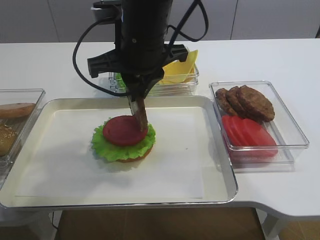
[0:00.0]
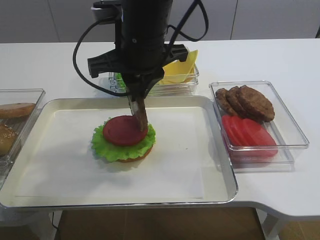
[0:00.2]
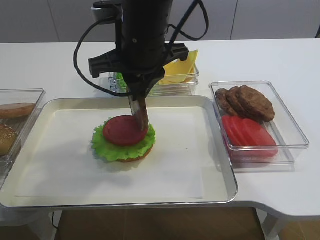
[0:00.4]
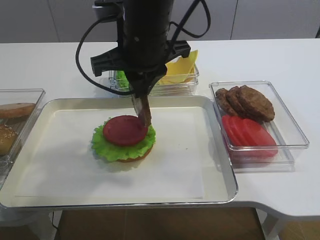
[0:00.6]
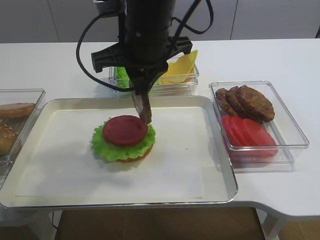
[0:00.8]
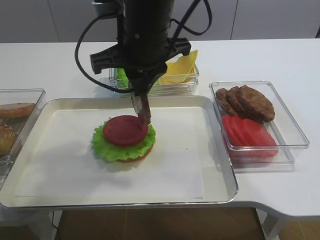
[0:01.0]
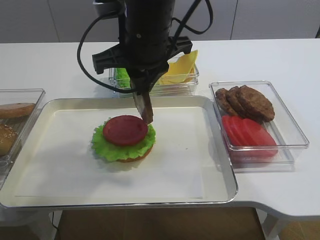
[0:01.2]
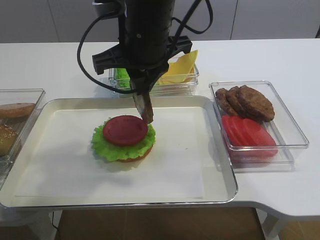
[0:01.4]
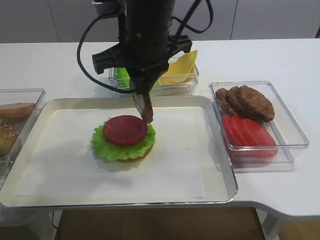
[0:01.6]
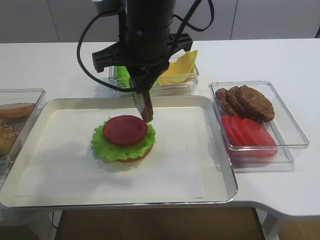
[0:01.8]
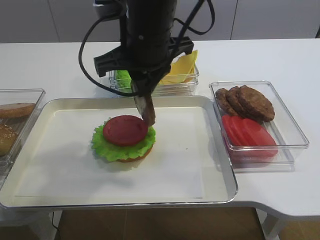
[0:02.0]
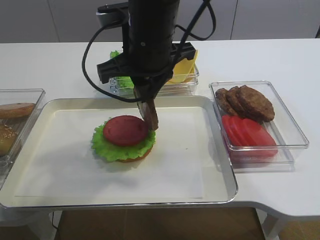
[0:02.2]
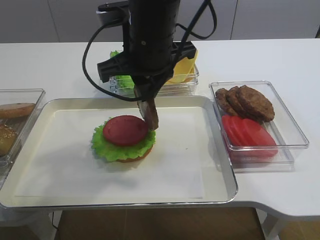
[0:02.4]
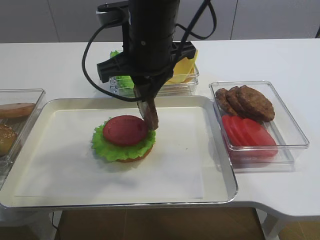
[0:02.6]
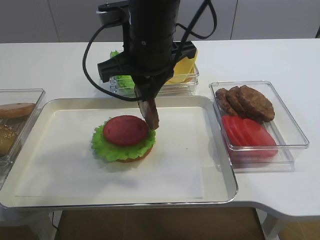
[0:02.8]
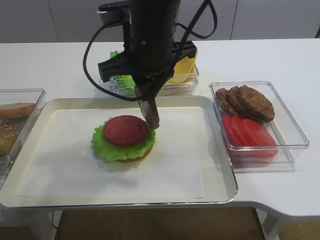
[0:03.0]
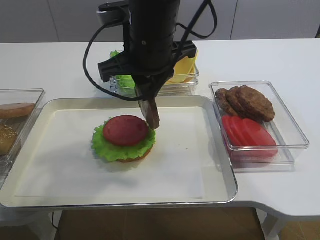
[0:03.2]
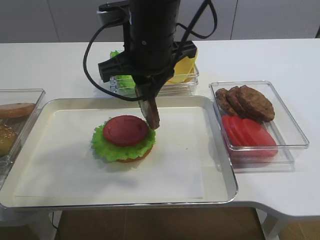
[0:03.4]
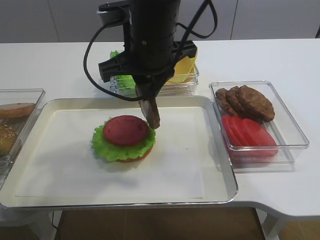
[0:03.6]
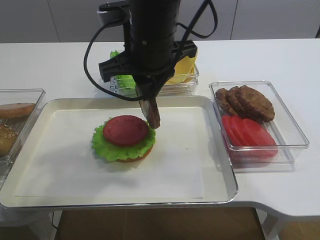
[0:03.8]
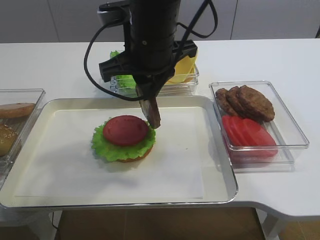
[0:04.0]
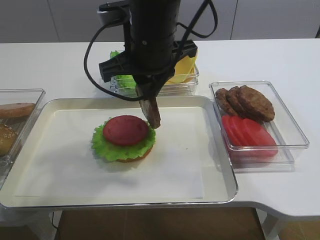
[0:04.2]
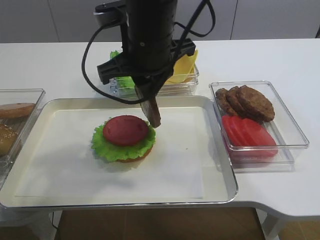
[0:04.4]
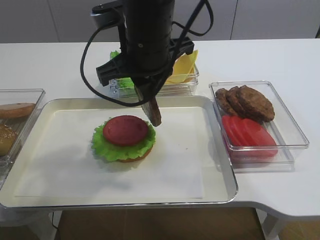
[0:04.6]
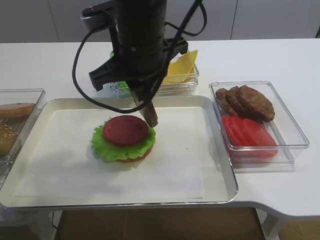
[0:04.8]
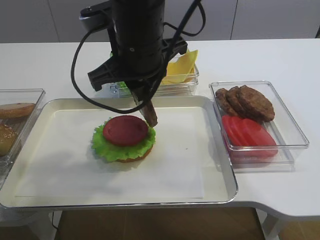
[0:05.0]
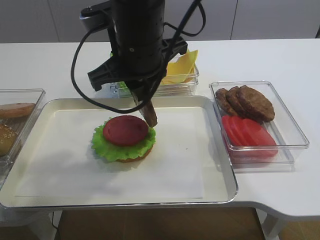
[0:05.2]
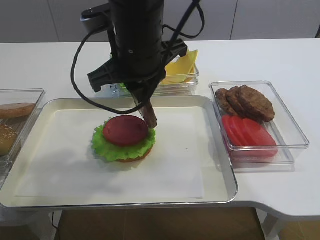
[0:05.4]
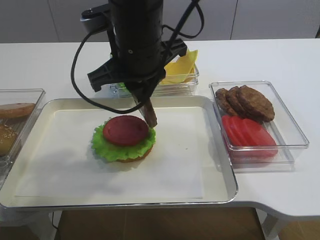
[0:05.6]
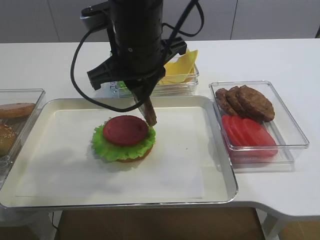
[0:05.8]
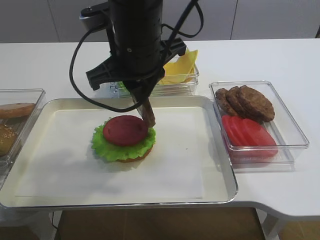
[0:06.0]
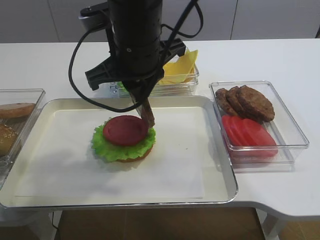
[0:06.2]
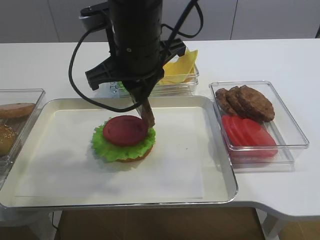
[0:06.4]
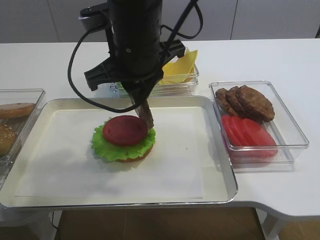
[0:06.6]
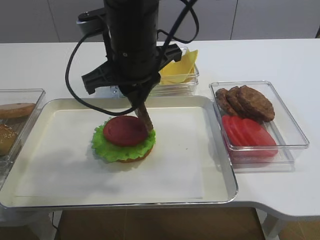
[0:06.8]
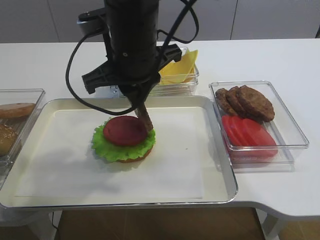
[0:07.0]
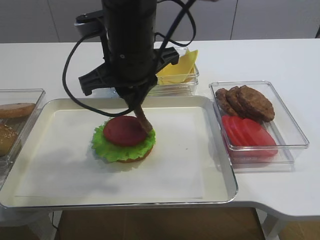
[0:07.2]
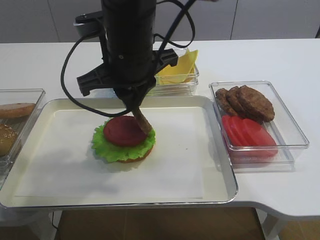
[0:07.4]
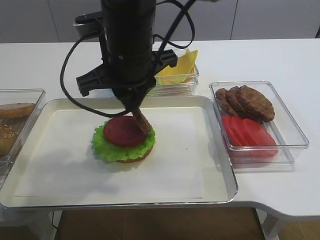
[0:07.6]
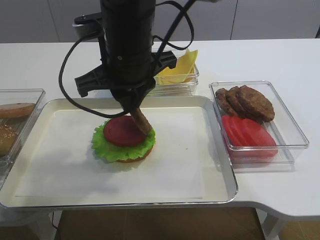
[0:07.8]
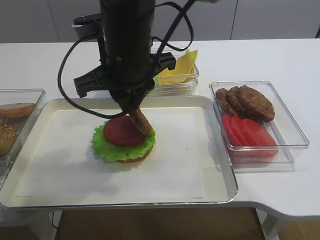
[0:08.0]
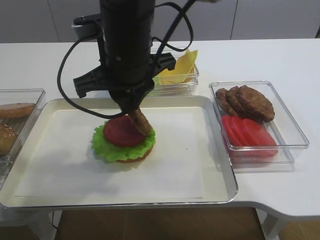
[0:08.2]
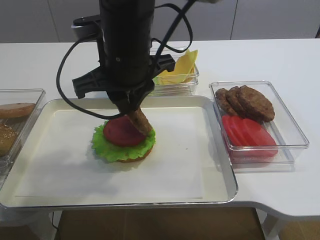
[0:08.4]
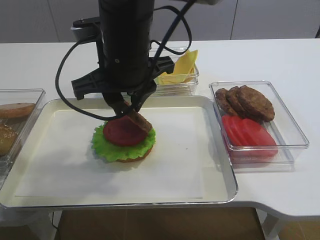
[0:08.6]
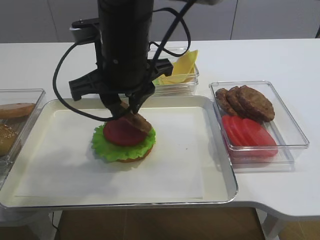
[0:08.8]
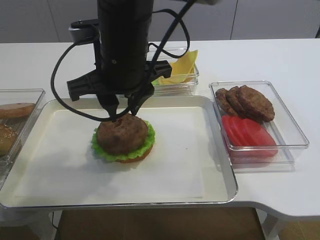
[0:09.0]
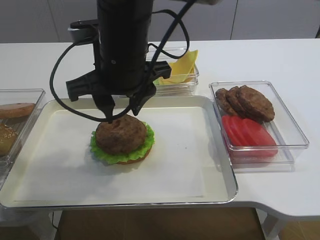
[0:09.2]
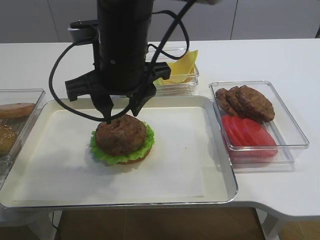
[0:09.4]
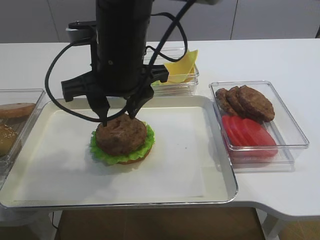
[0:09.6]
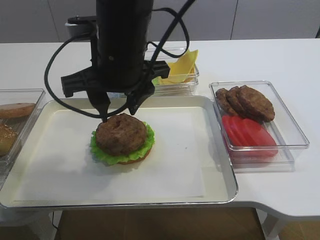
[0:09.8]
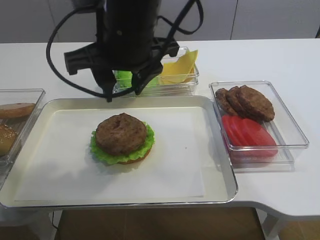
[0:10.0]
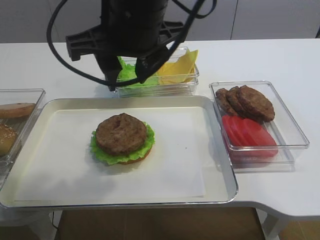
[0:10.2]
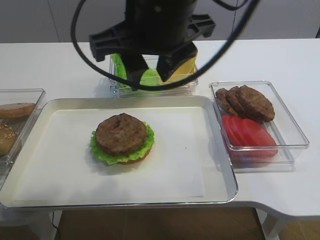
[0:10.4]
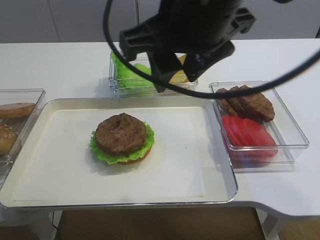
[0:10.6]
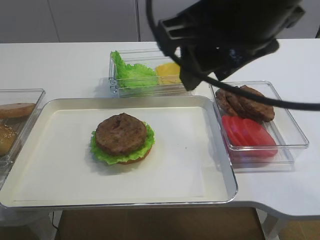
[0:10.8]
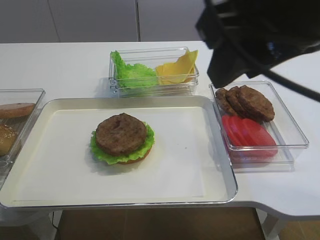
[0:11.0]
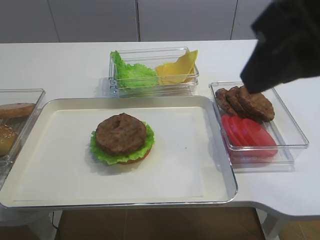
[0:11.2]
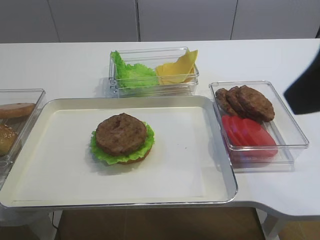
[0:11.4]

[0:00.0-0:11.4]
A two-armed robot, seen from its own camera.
Step, 0:00.0 to 0:09.4: Place the cutlet on the tomato slice with the right gripper.
0:00.0 to 0:02.8: Both grippers stay about where they are.
0:02.8 to 0:04.2: Neither gripper changes place.
0:04.2 to 0:05.6: The grippers move only a little.
0:05.6 to 0:07.2: Both grippers stay put.
0:07.2 to 0:08.6: The right gripper opens.
0:08.6 to 0:10.0: The right gripper opens.
0:10.0 to 0:11.4: The right gripper heads to the right and backward, covering some 25 cm.

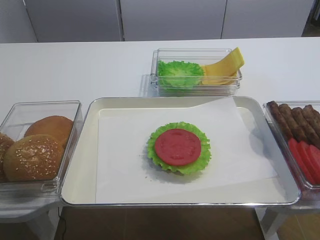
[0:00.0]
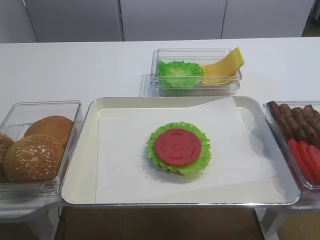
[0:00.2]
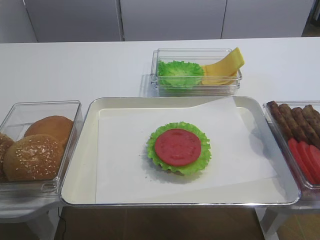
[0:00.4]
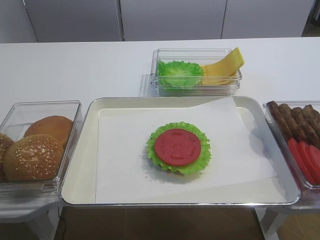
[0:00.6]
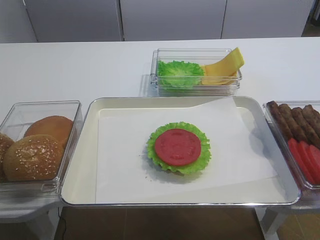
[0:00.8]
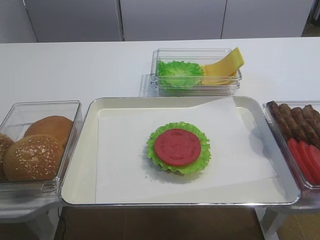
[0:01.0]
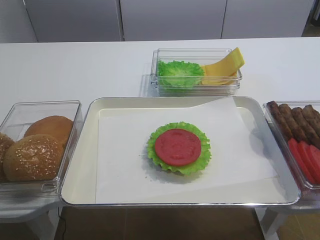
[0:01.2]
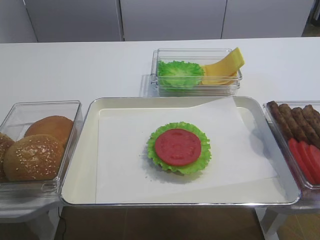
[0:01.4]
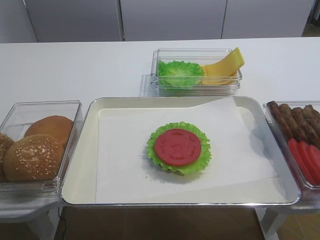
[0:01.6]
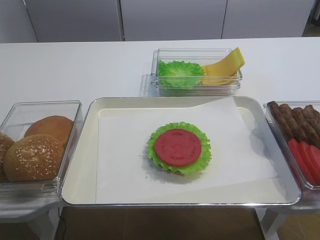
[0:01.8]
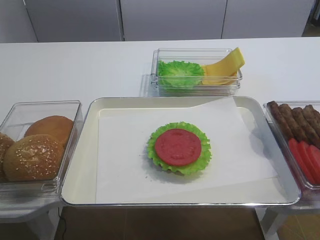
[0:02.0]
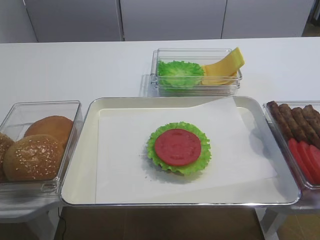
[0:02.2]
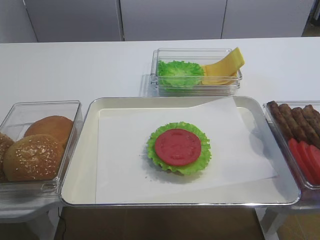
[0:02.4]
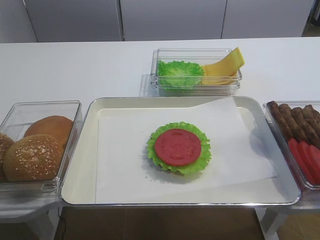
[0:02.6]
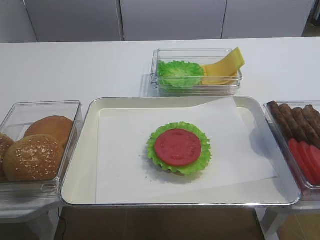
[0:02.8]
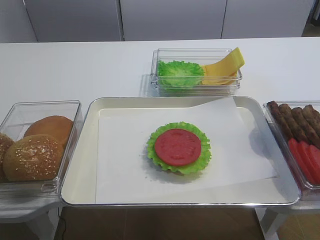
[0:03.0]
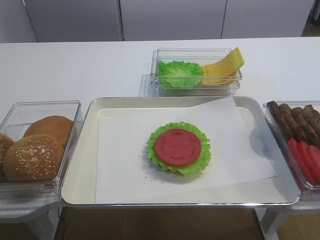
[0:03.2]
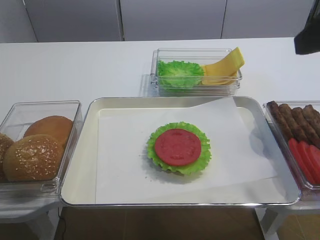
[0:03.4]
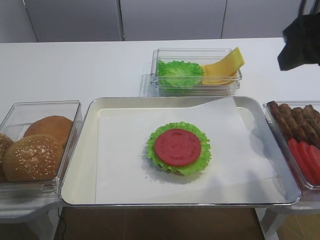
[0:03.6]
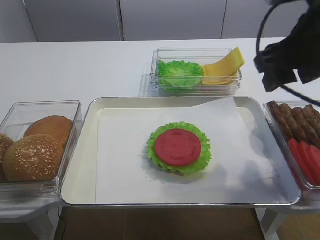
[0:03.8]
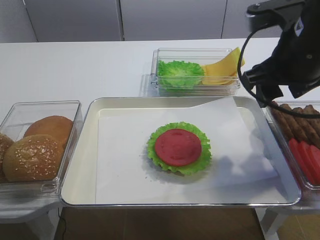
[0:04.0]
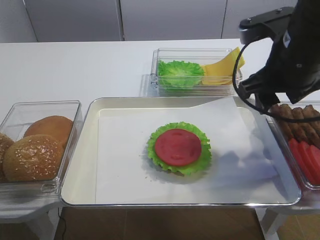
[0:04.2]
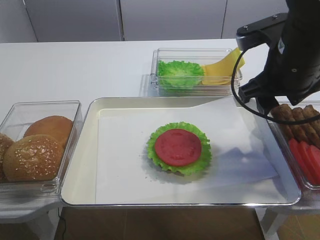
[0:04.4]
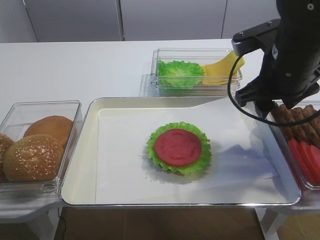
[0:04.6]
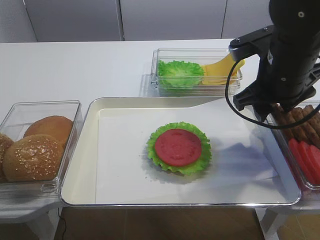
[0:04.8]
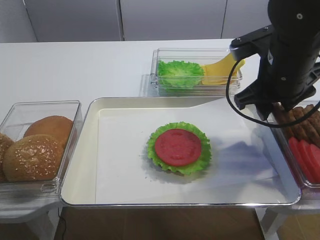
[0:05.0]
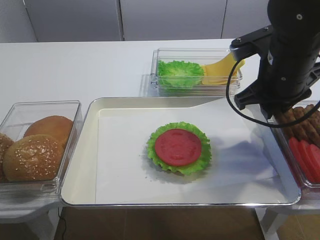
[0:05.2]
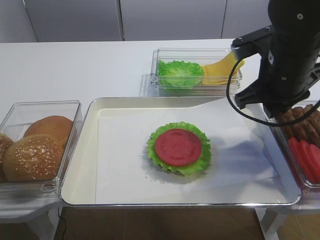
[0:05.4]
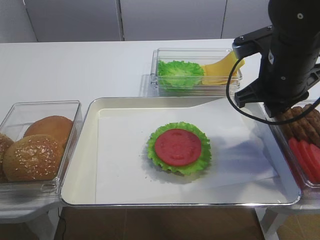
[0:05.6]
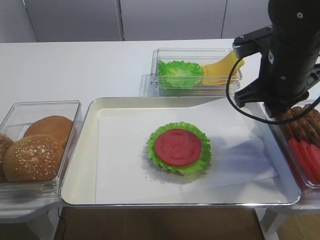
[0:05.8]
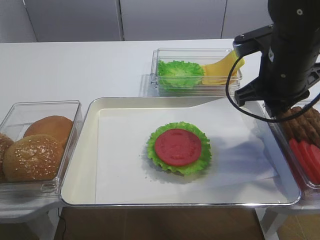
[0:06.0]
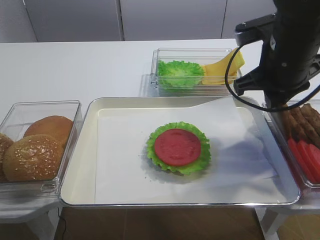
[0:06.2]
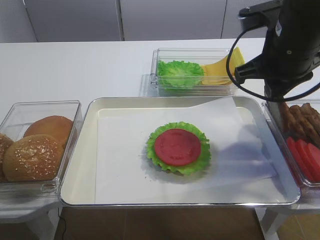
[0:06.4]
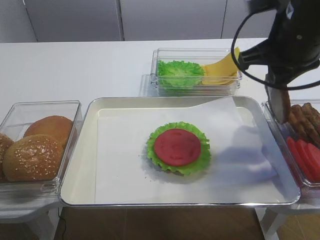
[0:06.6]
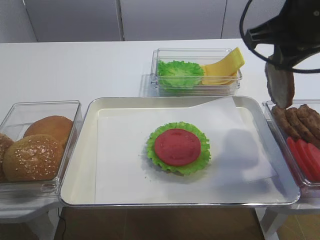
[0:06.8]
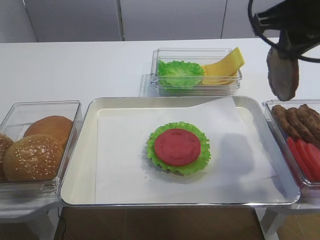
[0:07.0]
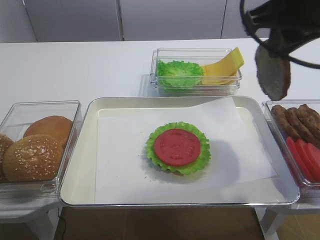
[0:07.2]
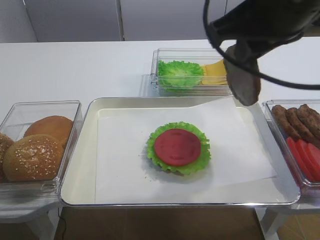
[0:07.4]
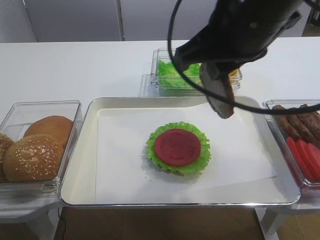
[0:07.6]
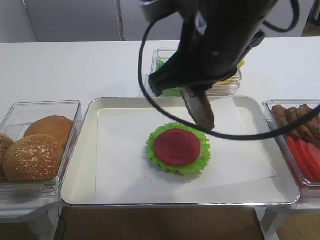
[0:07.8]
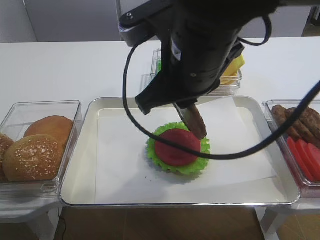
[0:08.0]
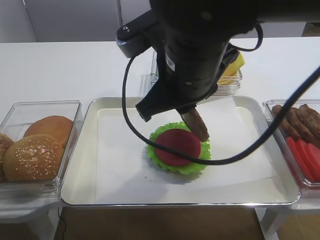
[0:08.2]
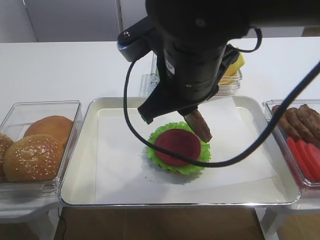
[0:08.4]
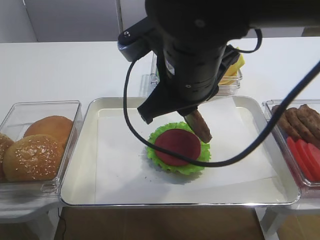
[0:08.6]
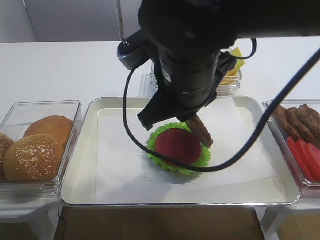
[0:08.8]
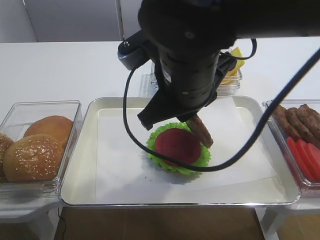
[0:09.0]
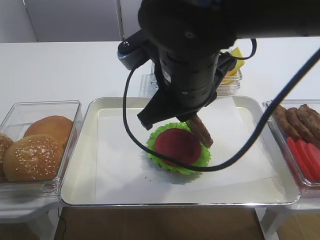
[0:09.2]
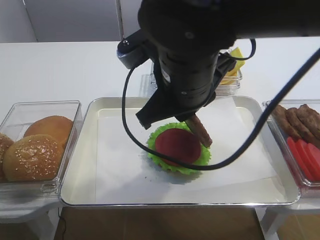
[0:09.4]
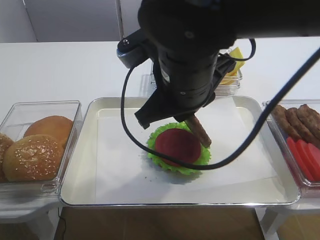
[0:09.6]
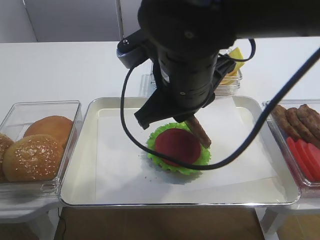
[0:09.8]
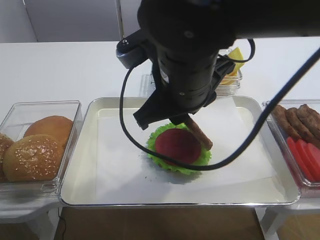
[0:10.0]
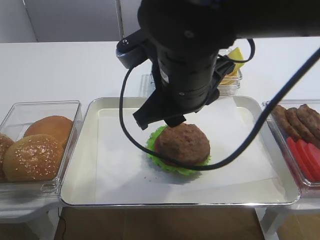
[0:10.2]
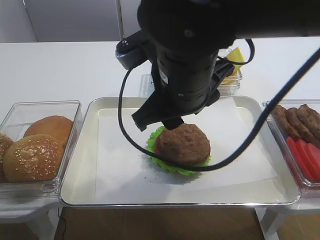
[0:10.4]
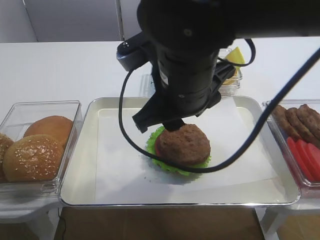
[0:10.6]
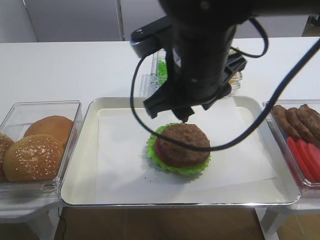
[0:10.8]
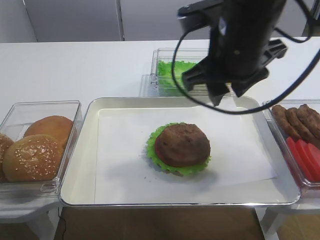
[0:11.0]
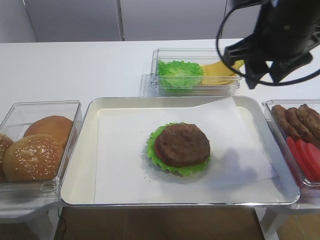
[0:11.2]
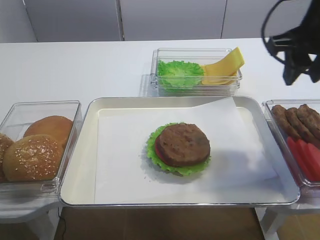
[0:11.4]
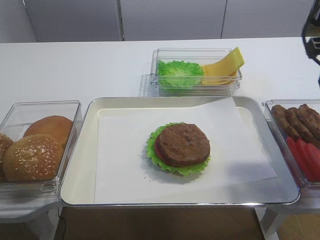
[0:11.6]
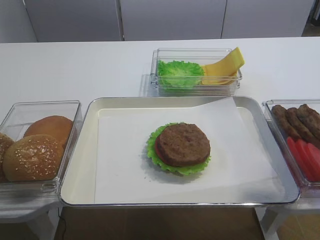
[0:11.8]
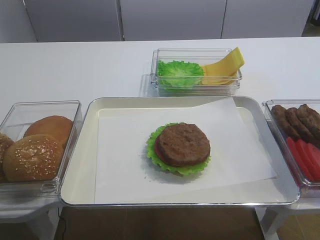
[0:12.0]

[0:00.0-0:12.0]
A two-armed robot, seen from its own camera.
Step, 0:00.0 to 0:06.4: Pick up the cutlet with the right gripper.
Step, 0:06.8 to 0:10.4: Place the cutlet on the tomato slice with the right gripper.
0:03.0 to 0:04.4: The right gripper moves forward, downward and to the left, roughly 20 cm.
0:04.4 to 0:06.0: The right gripper closes.
0:06.0 to 0:07.6: The right gripper travels upward, to the left and backward by about 15 cm.
0:07.6 to 0:09.0: The right gripper goes approximately 10 cm downward and to the left.
0:09.0 to 0:10.4: The right gripper opens.
0:10.4 to 0:12.0: The right gripper heads to the right, covering roughly 25 cm.
